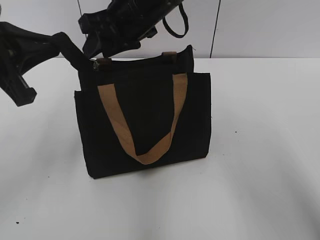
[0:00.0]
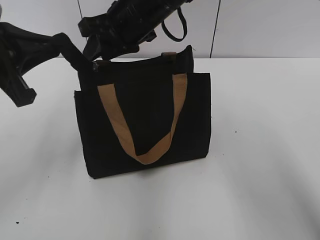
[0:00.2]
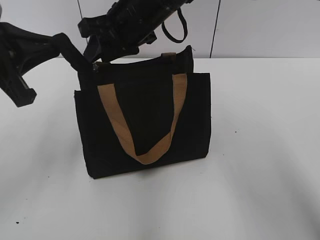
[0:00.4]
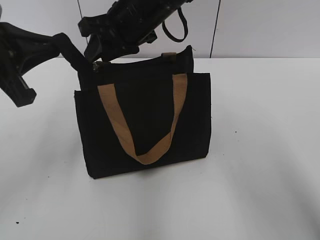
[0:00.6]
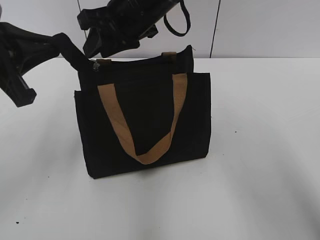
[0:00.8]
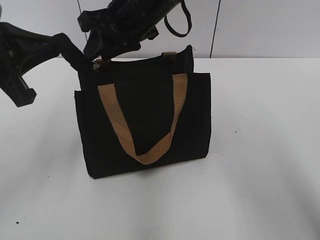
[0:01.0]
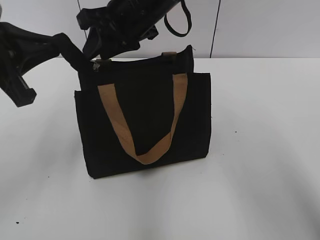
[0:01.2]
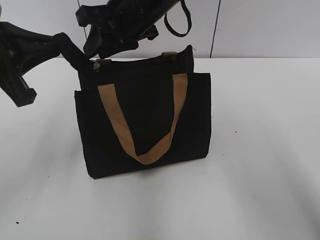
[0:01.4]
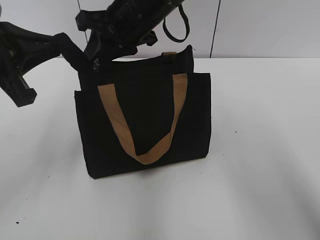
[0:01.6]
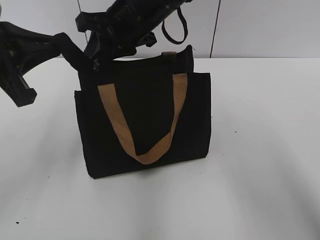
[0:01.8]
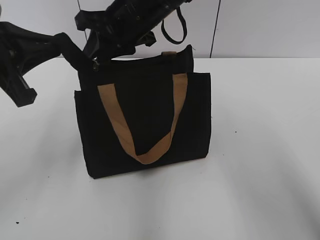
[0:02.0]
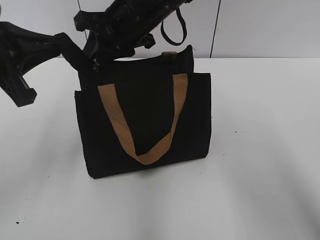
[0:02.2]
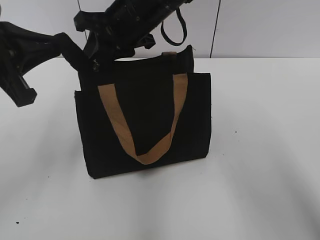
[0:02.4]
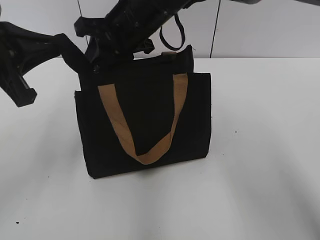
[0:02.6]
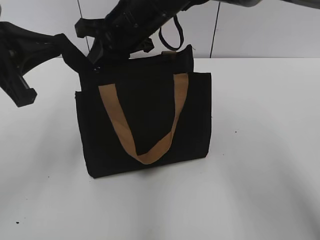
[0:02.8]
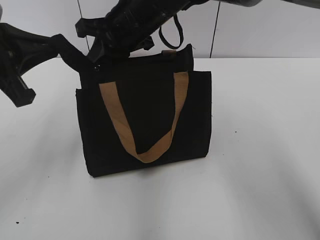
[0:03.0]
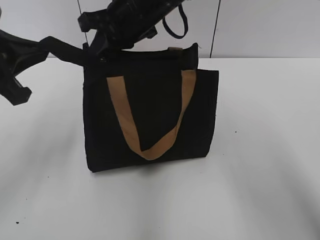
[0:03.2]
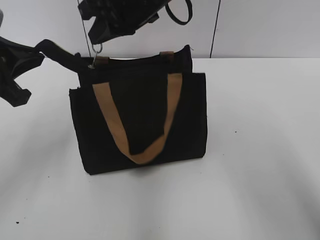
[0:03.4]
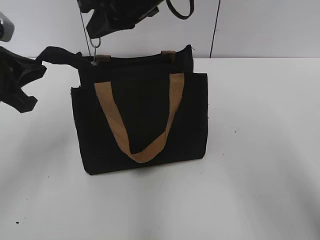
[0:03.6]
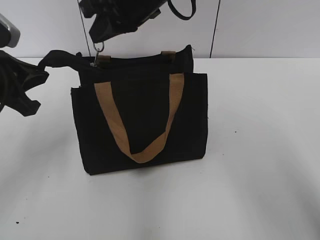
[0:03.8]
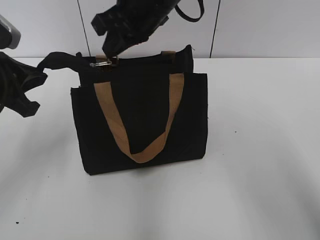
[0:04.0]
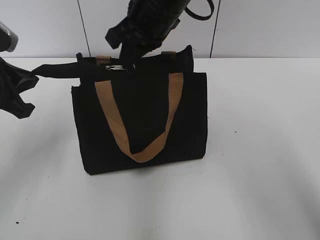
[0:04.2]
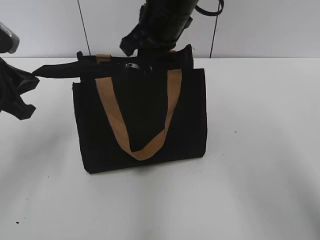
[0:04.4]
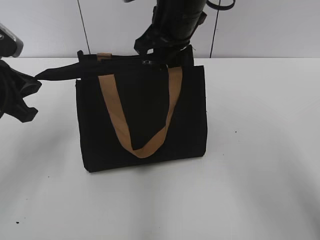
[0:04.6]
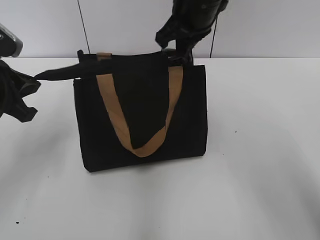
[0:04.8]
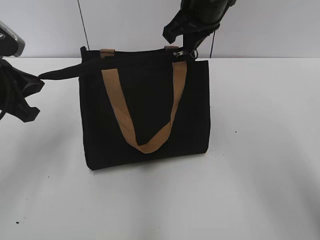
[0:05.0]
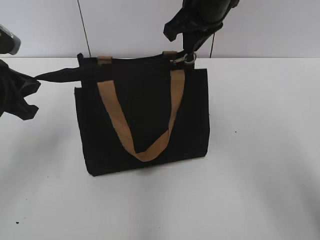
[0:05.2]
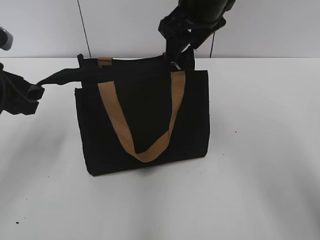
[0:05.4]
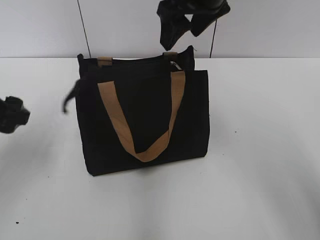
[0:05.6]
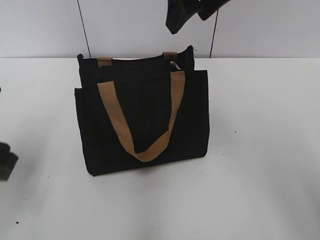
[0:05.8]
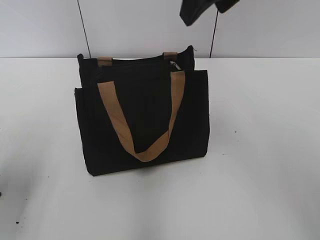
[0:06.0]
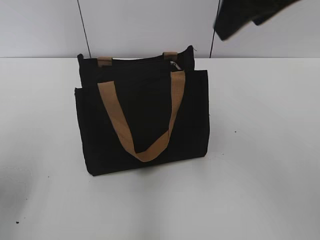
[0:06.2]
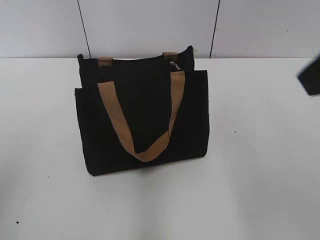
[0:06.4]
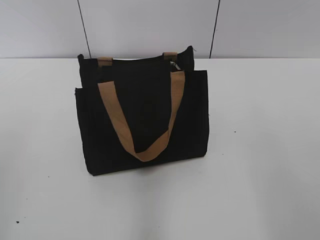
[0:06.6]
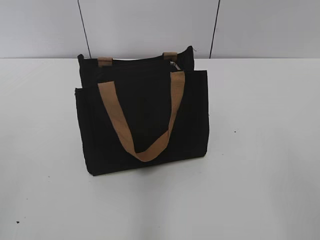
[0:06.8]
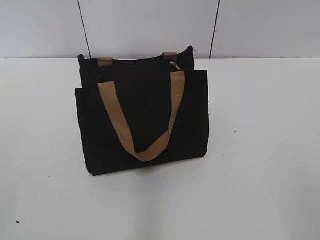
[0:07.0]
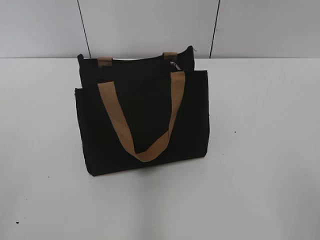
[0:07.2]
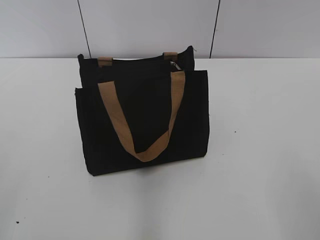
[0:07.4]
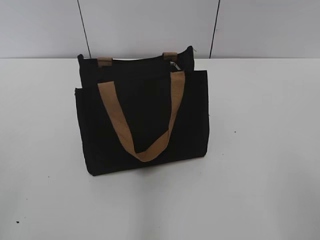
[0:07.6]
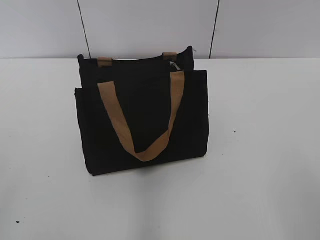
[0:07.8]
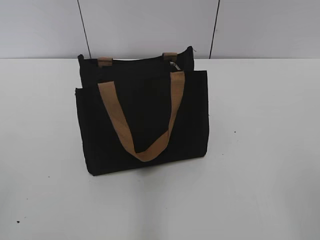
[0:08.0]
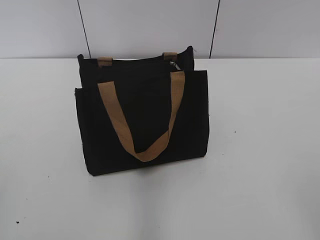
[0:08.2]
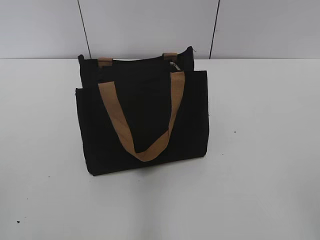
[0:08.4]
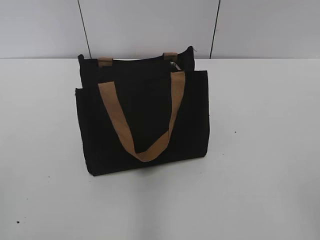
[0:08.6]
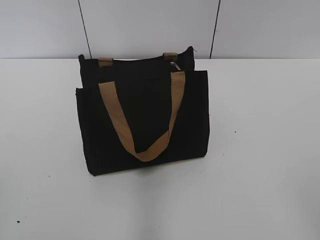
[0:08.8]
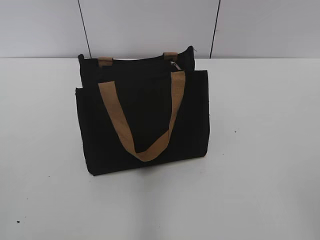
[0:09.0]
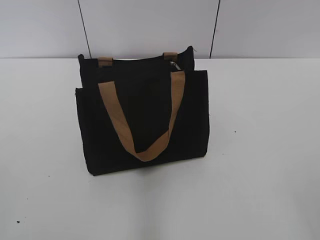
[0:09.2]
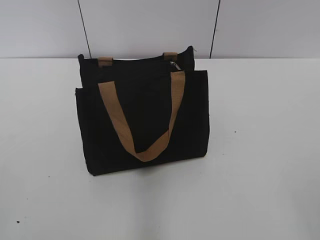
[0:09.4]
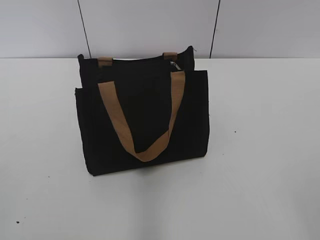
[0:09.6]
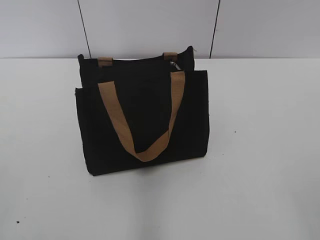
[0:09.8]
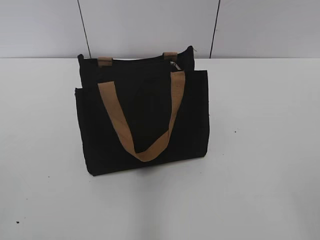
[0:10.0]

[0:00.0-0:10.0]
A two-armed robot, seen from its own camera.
Step, 0:00.0 to 0:05.2: Zip up the bag with your right hand.
Step, 0:05.4 to 0:05.6: Grab the zipper with your left hand.
0:00.0 to 0:01.4: The grippers stay close to where they were, moving slightly.
0:01.4 to 0:02.8: The right gripper closes its fingers.
0:02.8 to 0:04.2: The left gripper shifts by approximately 5 cm.
0:04.2 to 0:05.8: The left gripper moves approximately 5 cm, and opens, while the right gripper is displaced to the right and upward by approximately 10 cm, and opens its fingers.
0:05.8 to 0:07.2: The left gripper goes some 25 cm backward and upward, while the right gripper goes about 40 cm backward and to the right.

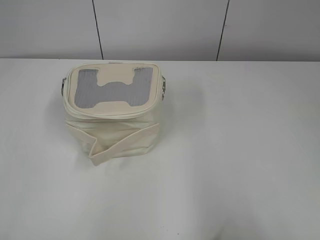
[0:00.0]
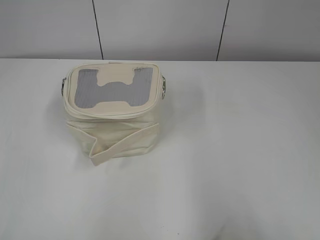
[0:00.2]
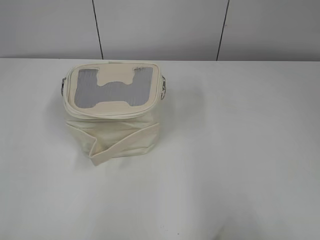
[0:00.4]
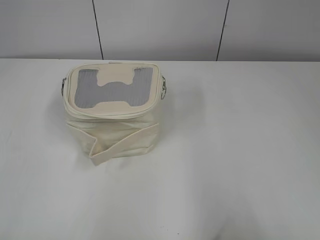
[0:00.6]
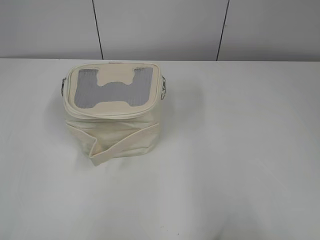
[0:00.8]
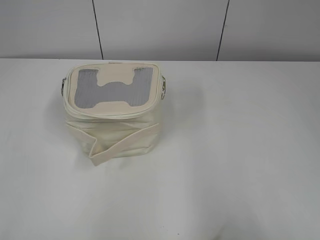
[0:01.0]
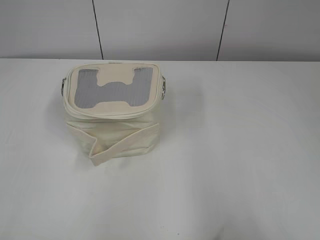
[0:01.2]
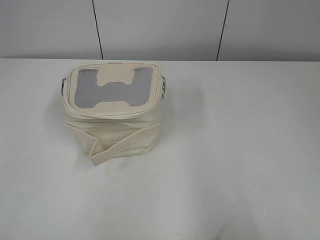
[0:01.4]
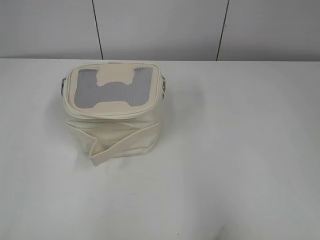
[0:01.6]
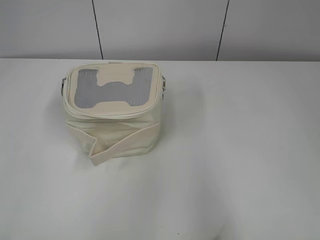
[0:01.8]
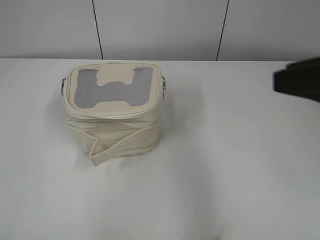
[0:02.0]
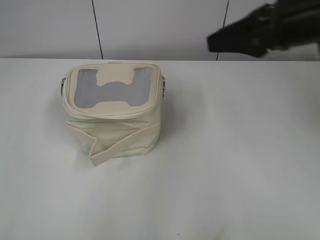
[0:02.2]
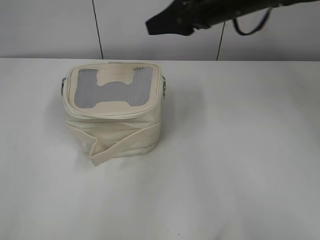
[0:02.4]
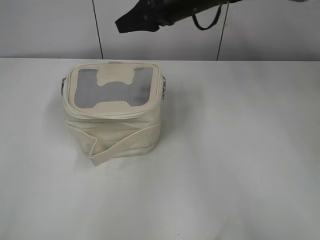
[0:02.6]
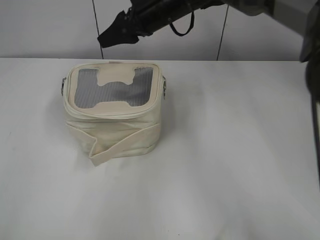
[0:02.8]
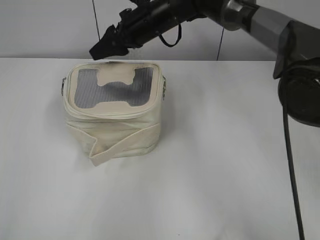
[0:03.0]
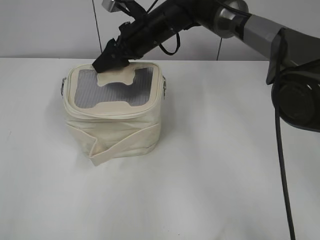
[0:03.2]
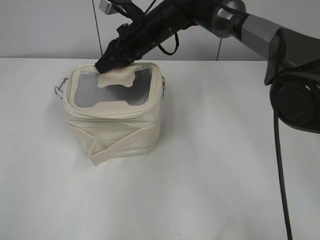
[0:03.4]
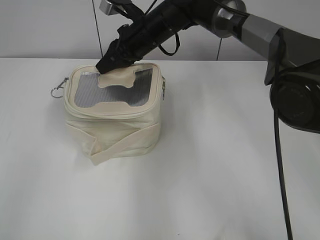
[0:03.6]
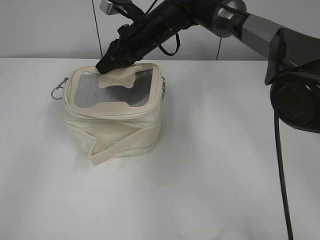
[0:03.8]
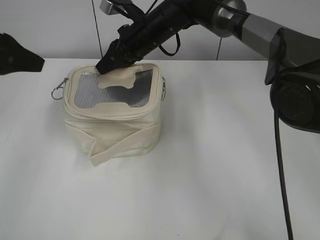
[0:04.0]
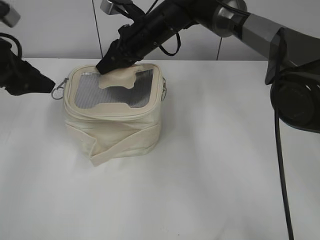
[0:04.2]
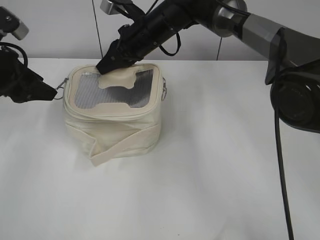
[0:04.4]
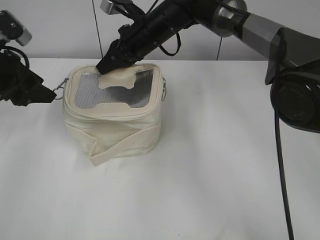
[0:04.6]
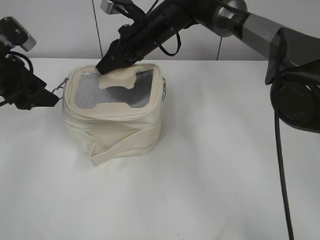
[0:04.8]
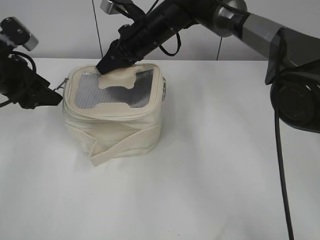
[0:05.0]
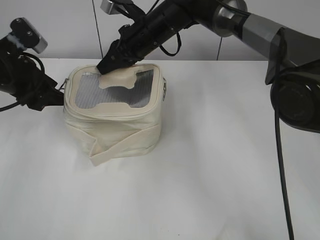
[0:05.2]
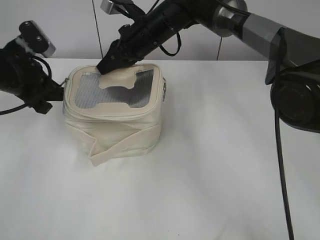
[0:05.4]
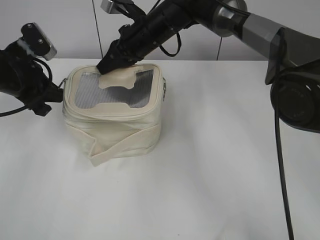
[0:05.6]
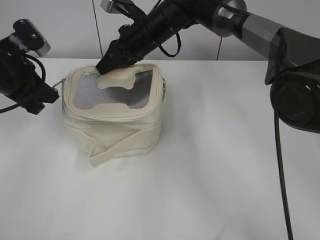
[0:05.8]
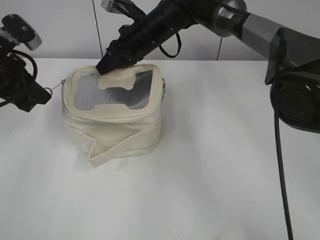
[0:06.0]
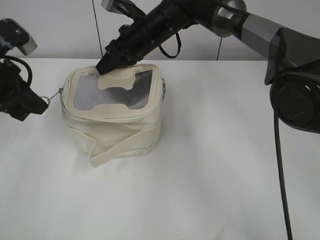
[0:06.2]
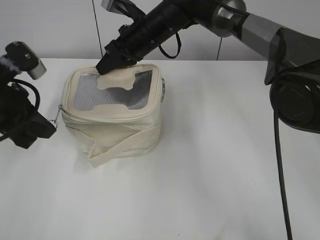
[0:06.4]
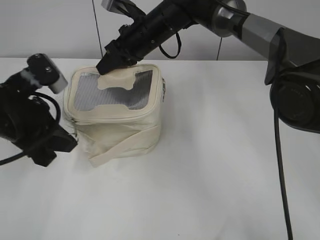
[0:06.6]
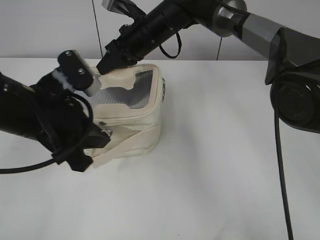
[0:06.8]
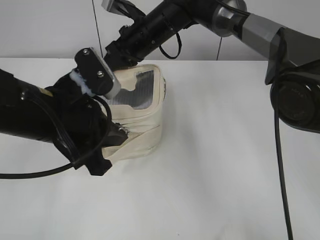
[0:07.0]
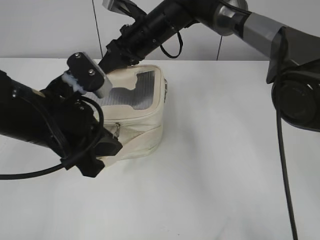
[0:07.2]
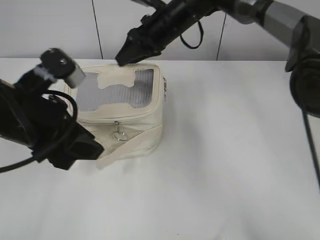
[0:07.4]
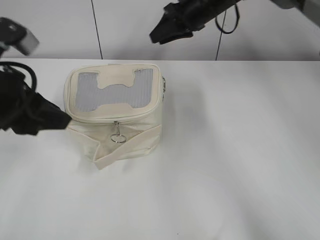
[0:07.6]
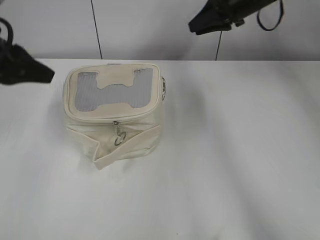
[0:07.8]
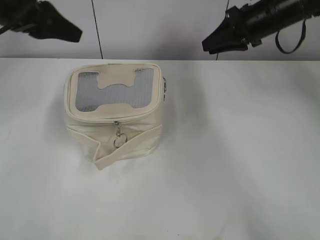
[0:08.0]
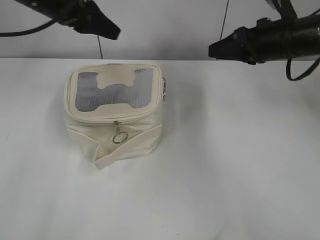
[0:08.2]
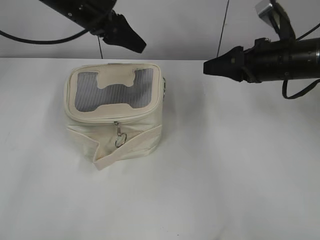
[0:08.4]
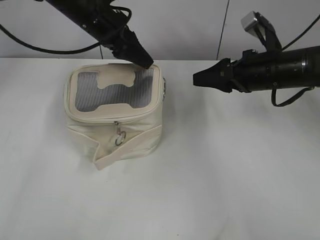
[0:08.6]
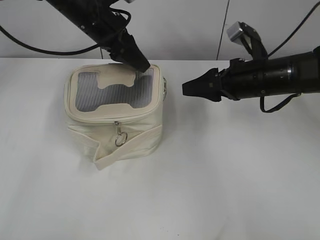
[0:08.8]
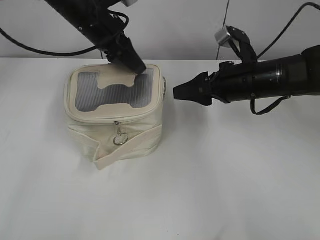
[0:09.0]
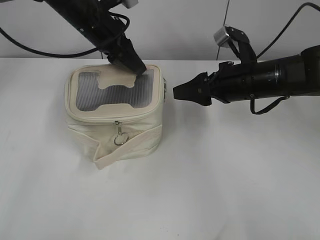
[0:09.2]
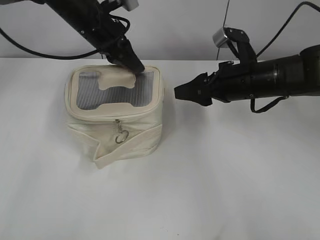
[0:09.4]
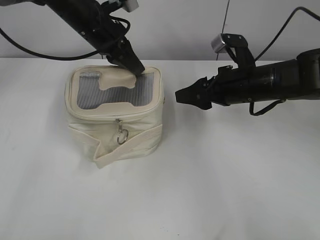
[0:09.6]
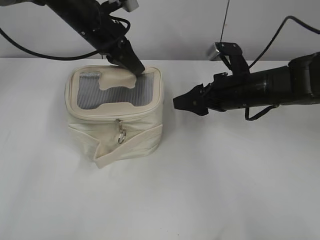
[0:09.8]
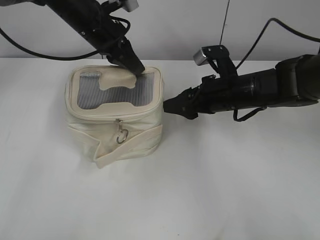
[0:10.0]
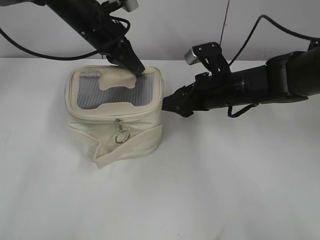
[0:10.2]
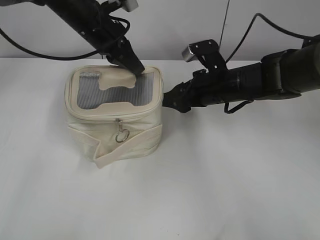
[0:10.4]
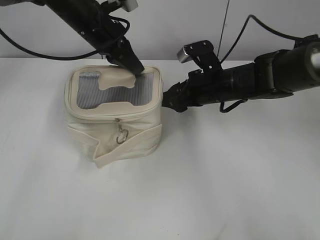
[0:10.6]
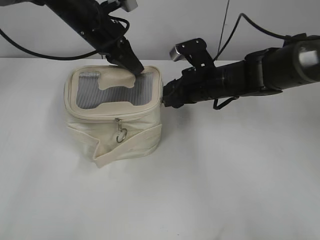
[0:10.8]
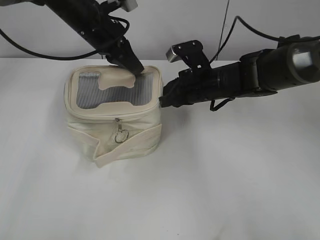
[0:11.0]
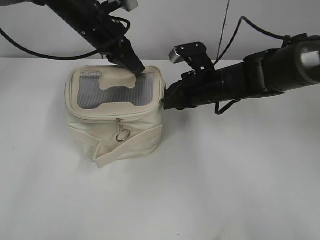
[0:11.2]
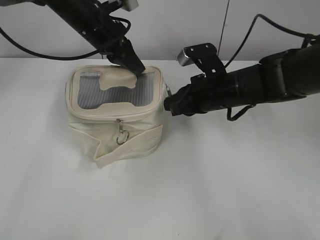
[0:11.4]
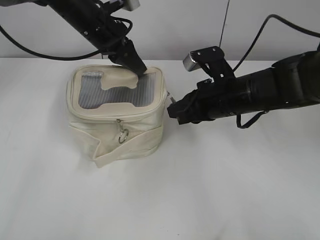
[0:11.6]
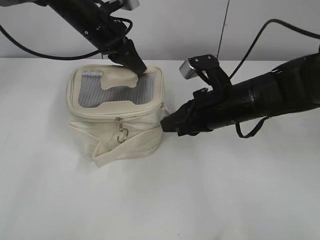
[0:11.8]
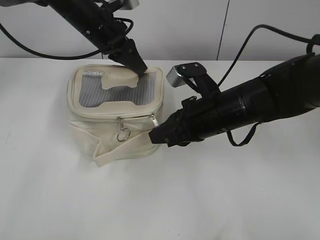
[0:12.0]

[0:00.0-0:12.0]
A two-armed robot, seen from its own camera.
Step, 0:00.0 to 0:07.2: Zip up the bag with your left hand.
0:01.6 to 0:03.0: The right gripper heads forward and to the left, covering some 60 cm.
0:03.0 to 0:04.4: The right gripper closes its fingers, while the left gripper is displaced forward by some 30 cm, and opens up.
0:04.4 to 0:06.0: The left gripper closes up.
0:06.0 to 0:07.6: The right gripper moves to the right, about 10 cm, and opens up. The left gripper goes about 10 cm backward and to the right, and opens up.
0:07.6 to 0:09.0: The right gripper shifts roughly 20 cm backward, to the right and downward, and opens its fingers. Meanwhile the left gripper shifts approximately 20 cm forward.
0:09.0 to 0:10.4: The left gripper closes up, while the right gripper moves roughly 5 cm.
0:10.4 to 0:12.0: The right gripper moves backward, about 5 cm, and closes up.
